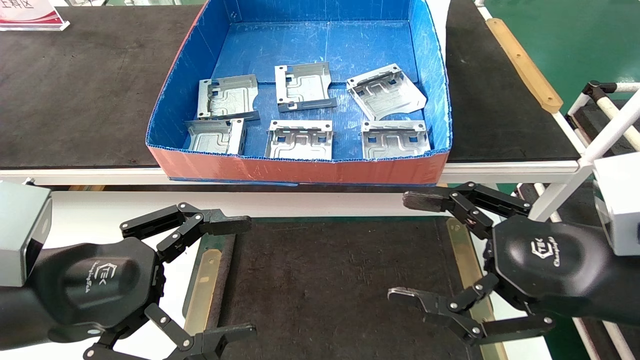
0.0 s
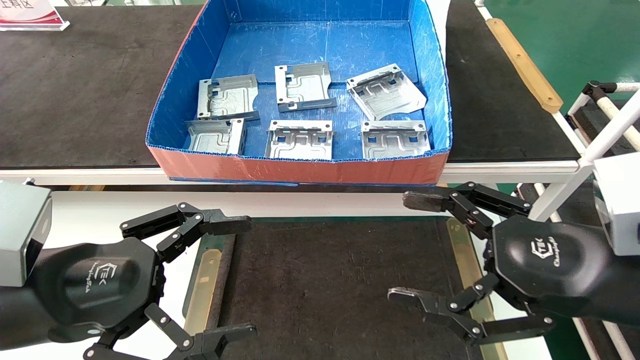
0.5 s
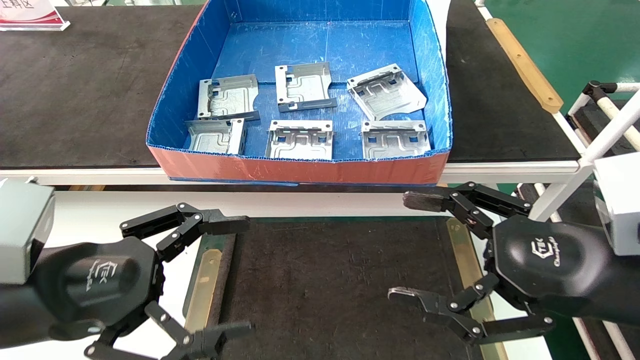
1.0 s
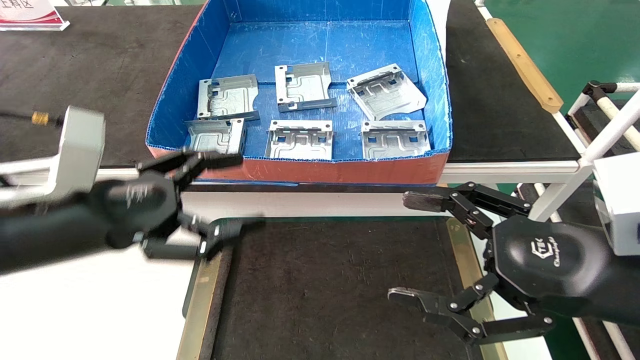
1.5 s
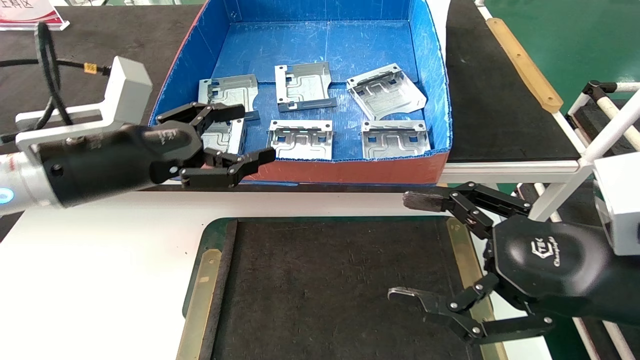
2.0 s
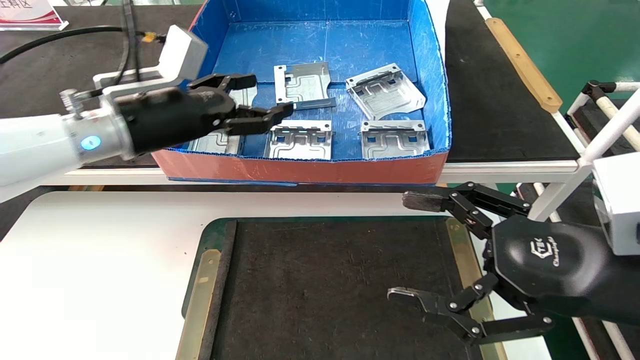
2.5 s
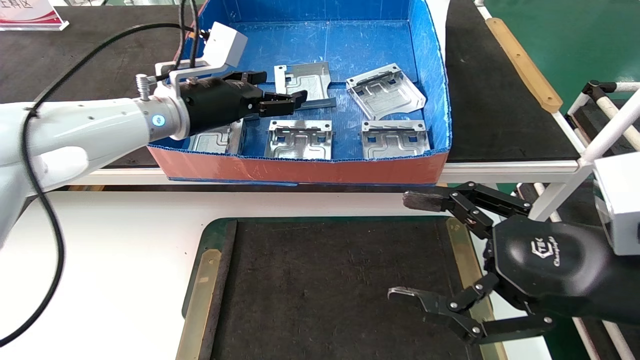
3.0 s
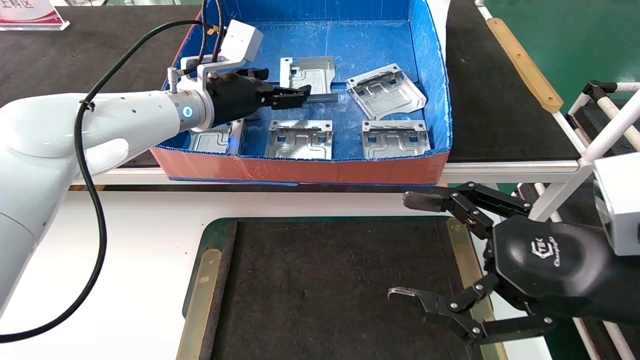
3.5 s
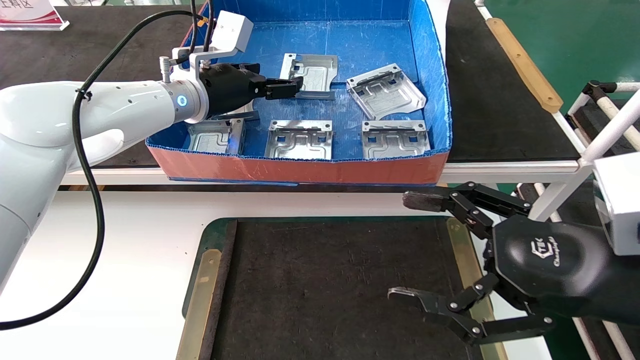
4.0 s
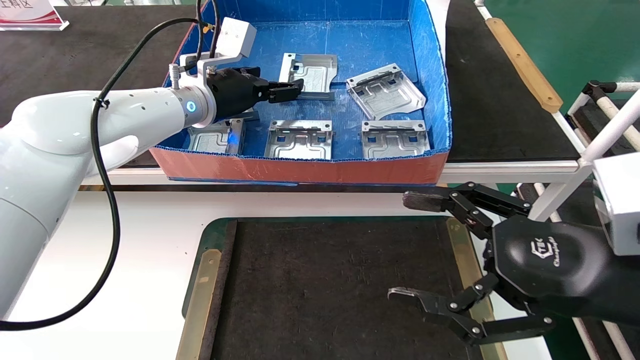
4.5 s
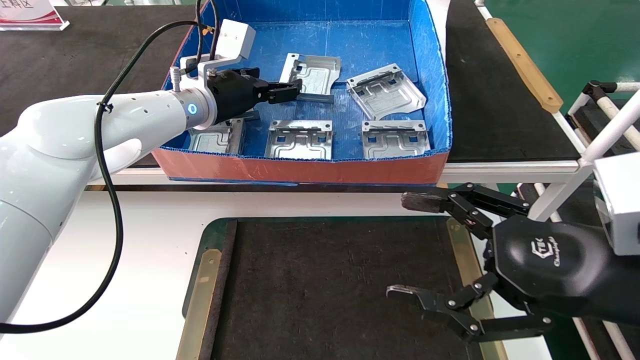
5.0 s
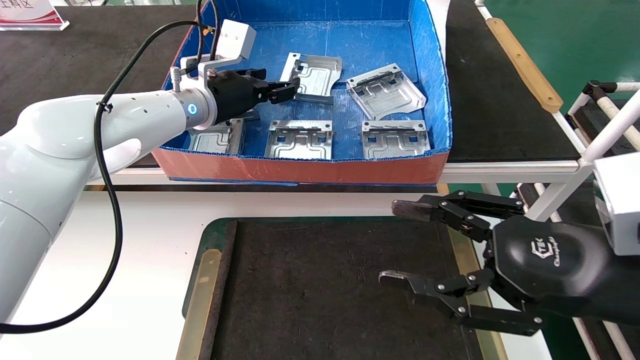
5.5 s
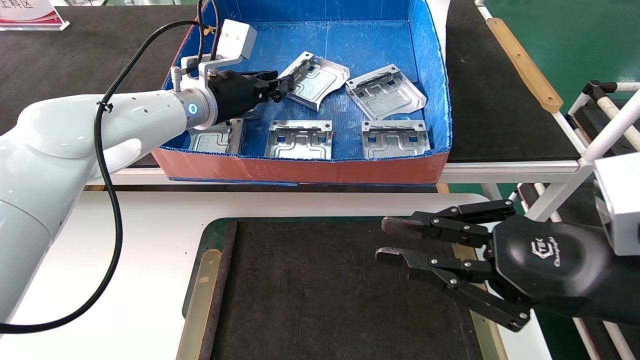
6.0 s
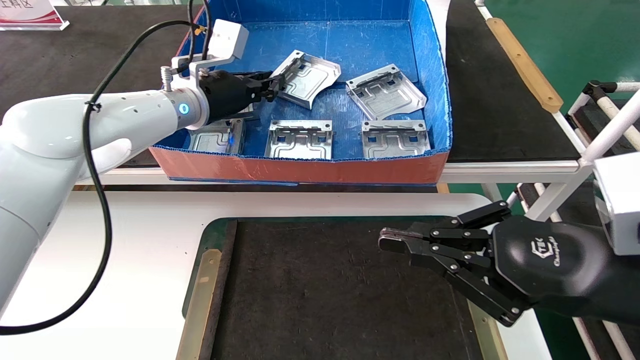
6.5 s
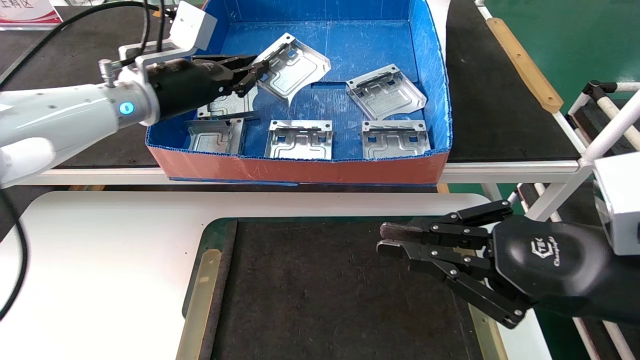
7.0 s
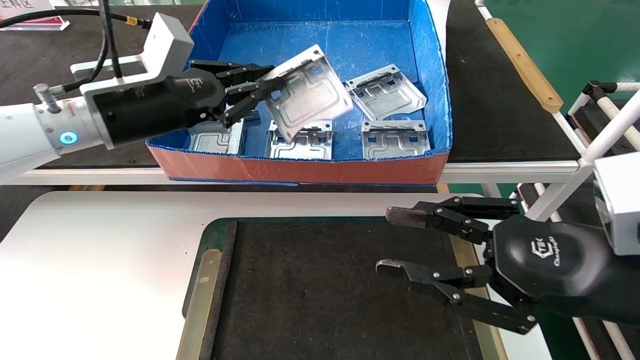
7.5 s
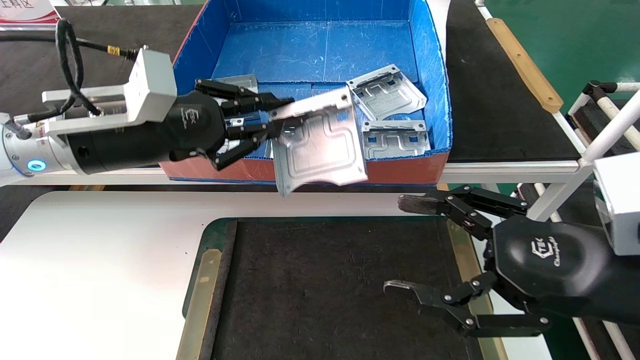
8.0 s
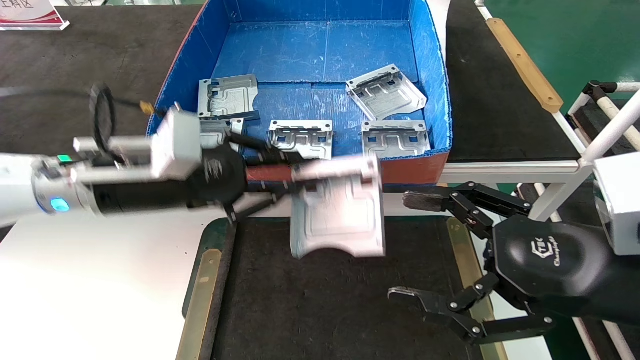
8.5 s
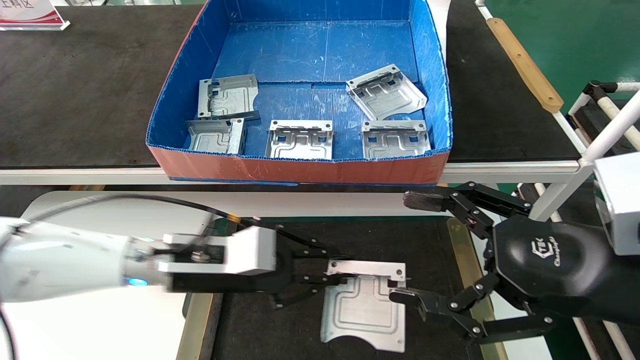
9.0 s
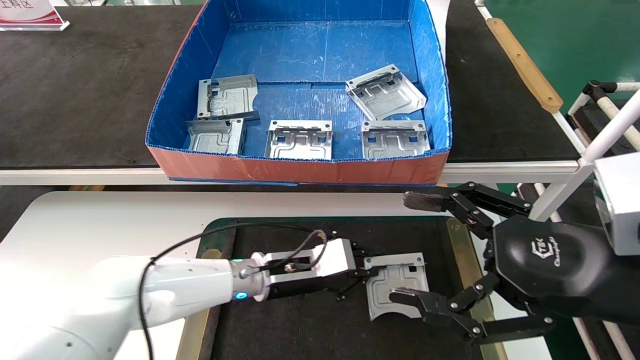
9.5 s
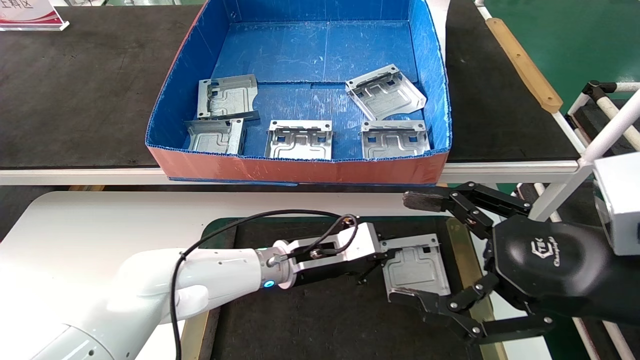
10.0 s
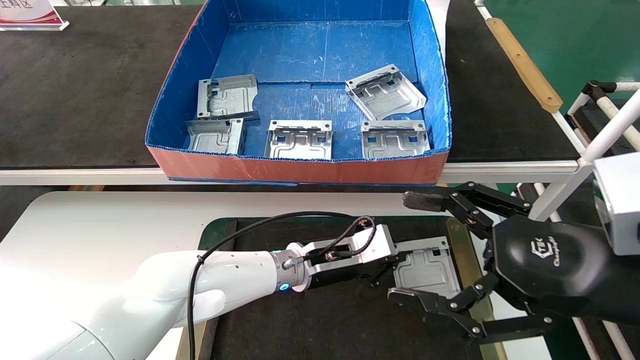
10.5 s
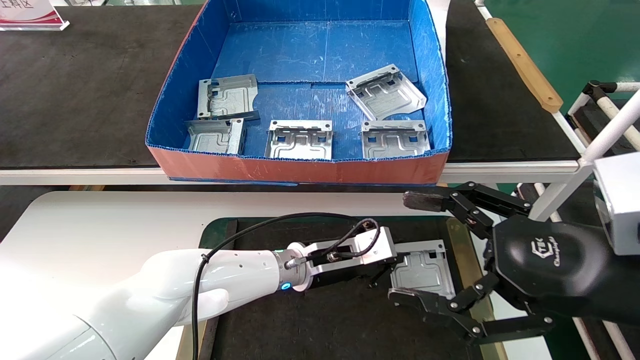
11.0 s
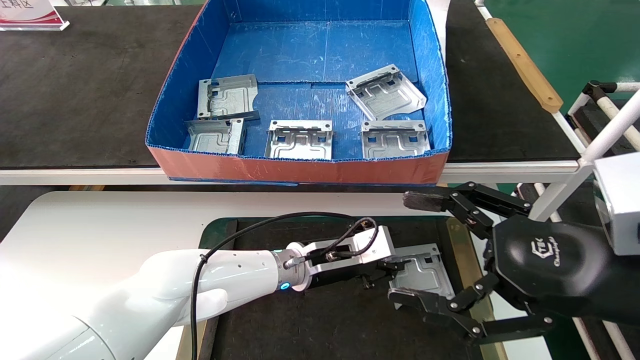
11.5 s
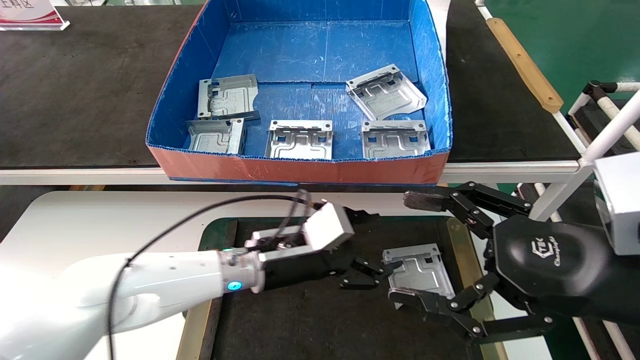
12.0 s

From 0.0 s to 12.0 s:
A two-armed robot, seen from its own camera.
Task of the whole recording: take the accessories out of the box and place them on the table.
Step, from 1.5 s to 6.0 s: Pick up the hard drive bracket from the feeding area.
Step, from 6.5 s to 11.5 s: Place the hard drive bracket into the box.
From 0.0 s to 2.0 s: The left gripper moves forward and upward, roughly 15 cm.
From 2.0 s to 4.0 s: The left gripper moves forward and to the right, some 20 cm.
From 4.0 s to 6.0 s: The right gripper closes, while the left gripper closes its fingers.
From 6.0 s to 8.0 s: The right gripper opens up, while the left gripper shifts some 15 cm backward and to the left.
From 8.0 s to 10.0 s: The left gripper heads downward and to the right, covering roughly 30 cm.
From 10.0 s to 12.0 s: The left gripper changes place by some 5 cm, and opens.
